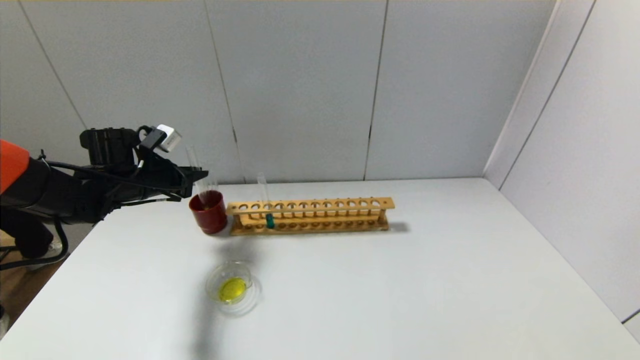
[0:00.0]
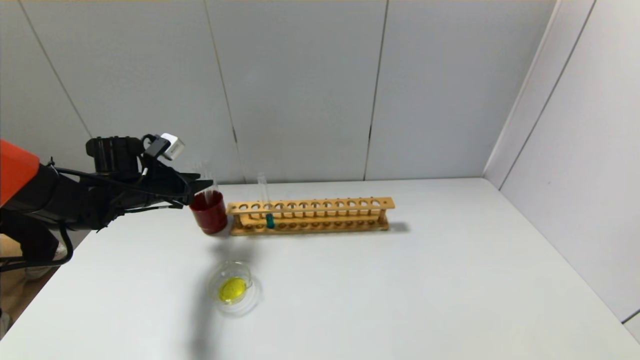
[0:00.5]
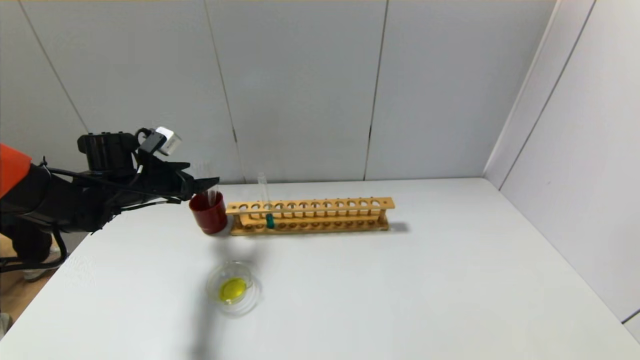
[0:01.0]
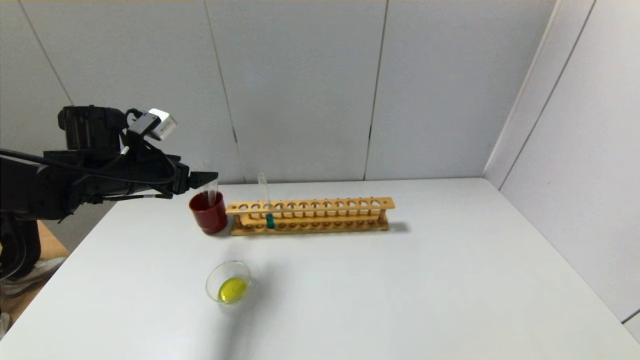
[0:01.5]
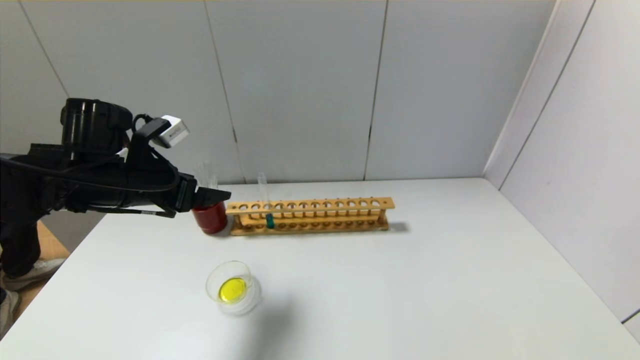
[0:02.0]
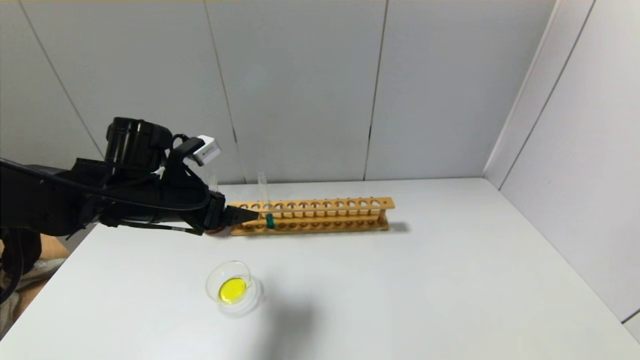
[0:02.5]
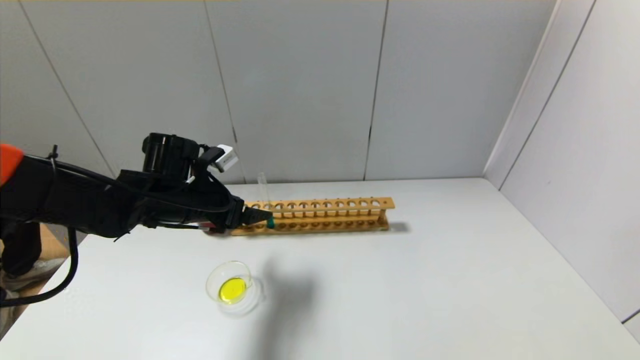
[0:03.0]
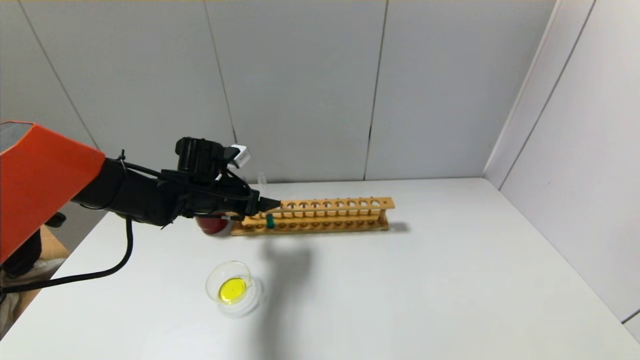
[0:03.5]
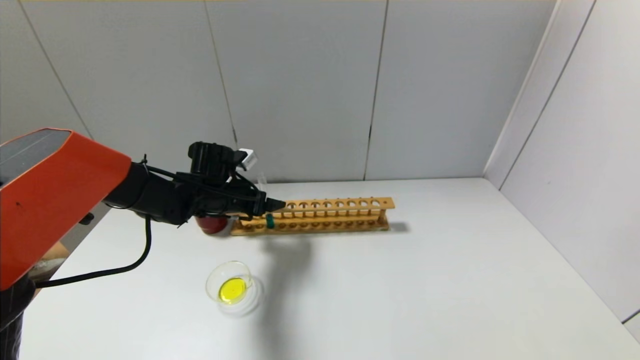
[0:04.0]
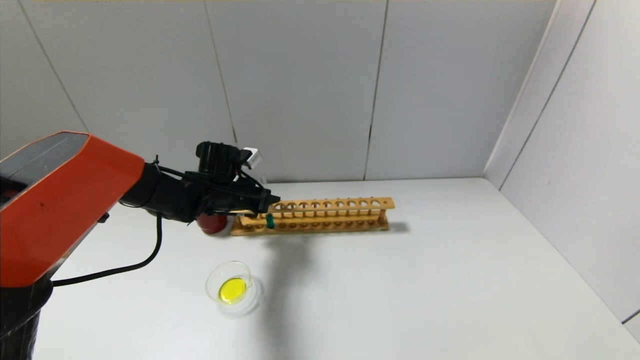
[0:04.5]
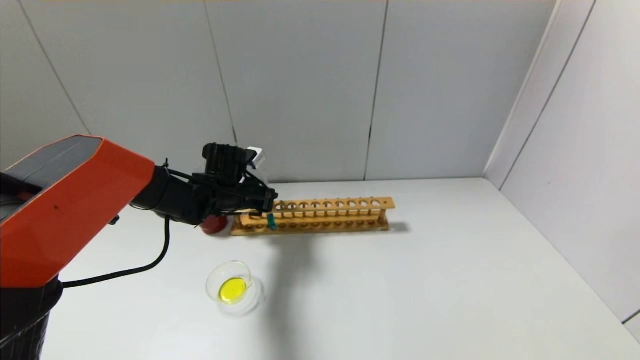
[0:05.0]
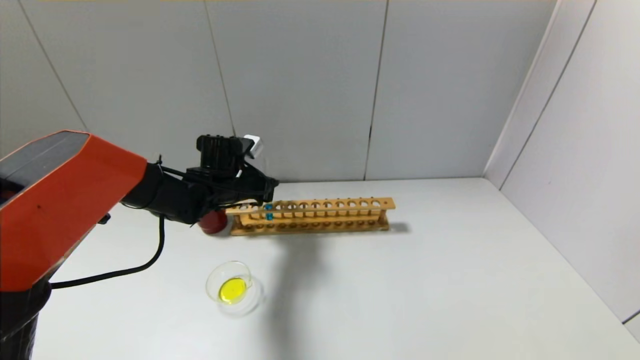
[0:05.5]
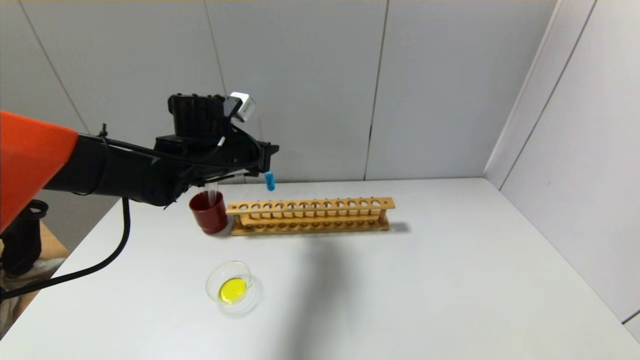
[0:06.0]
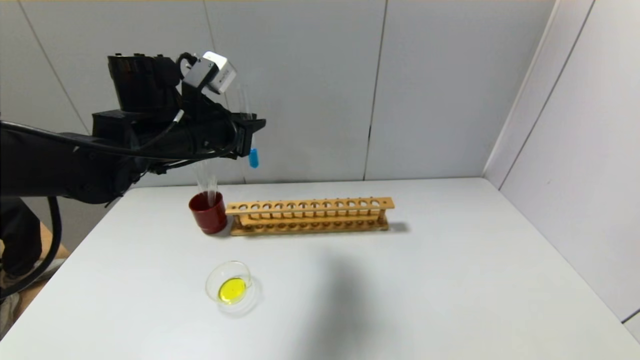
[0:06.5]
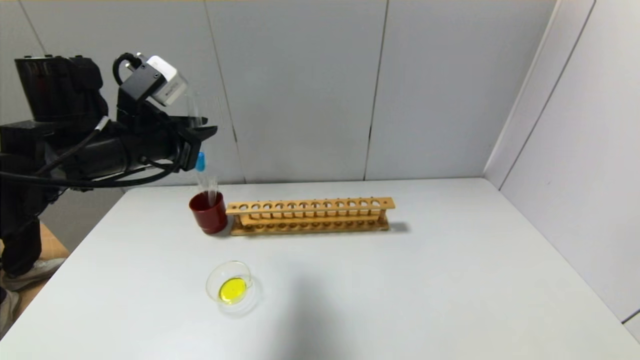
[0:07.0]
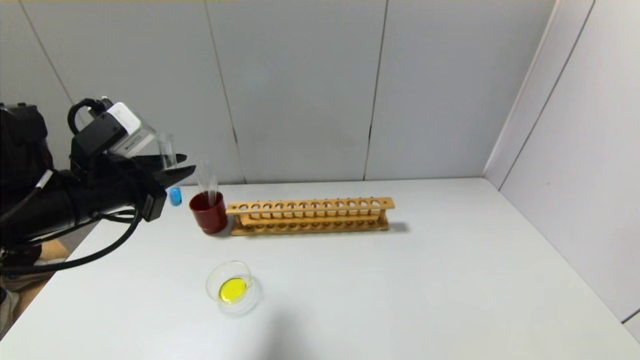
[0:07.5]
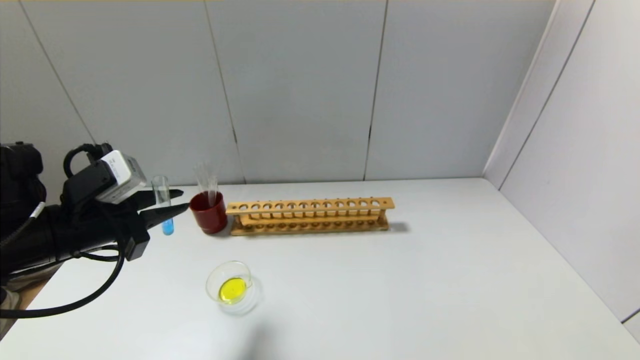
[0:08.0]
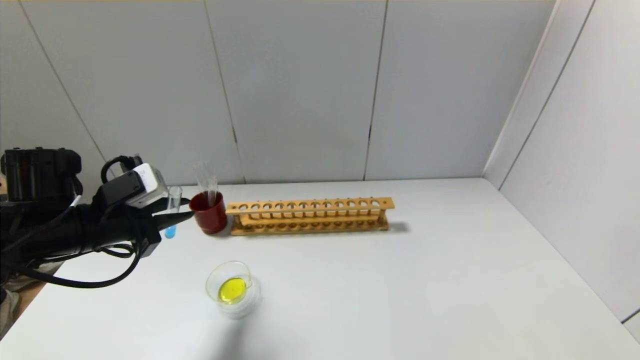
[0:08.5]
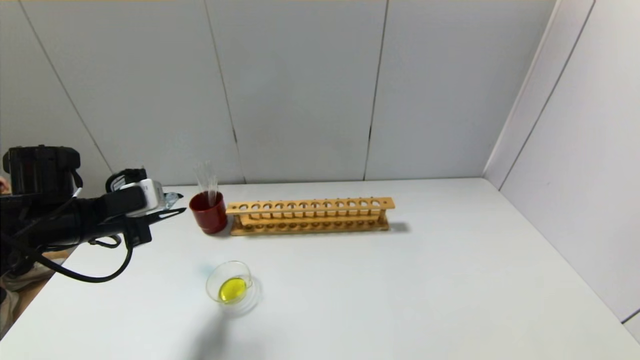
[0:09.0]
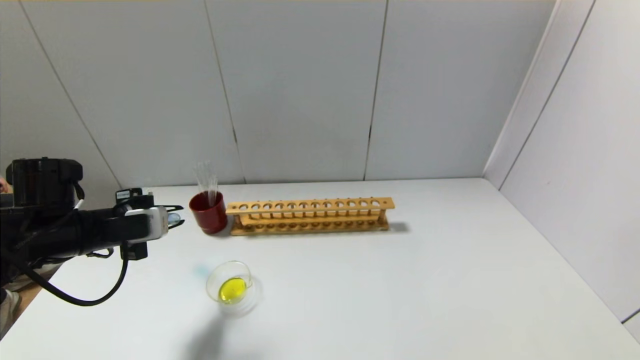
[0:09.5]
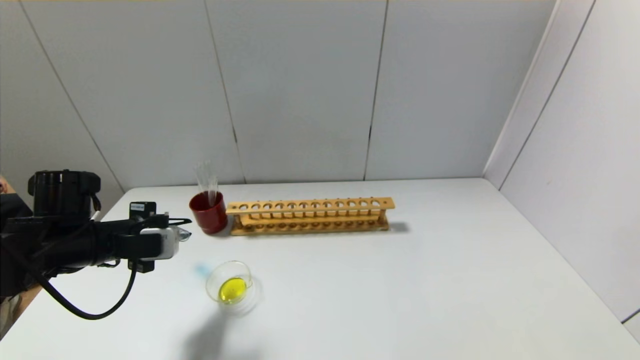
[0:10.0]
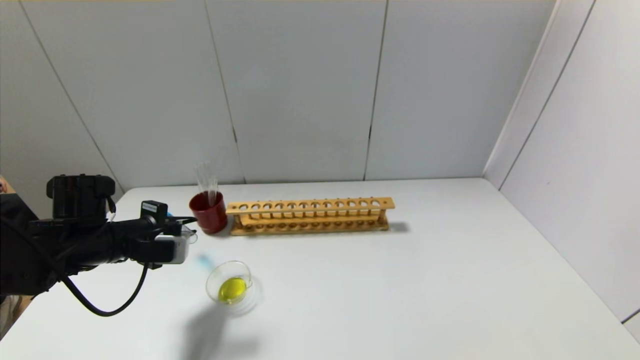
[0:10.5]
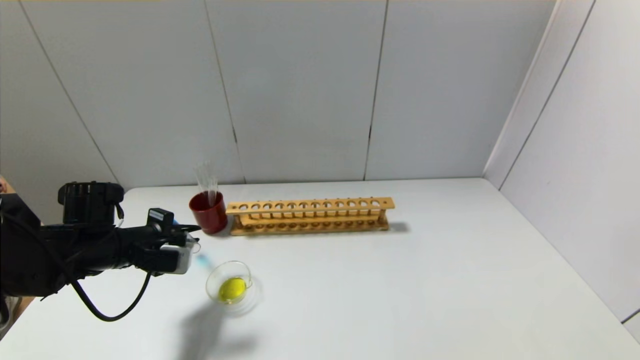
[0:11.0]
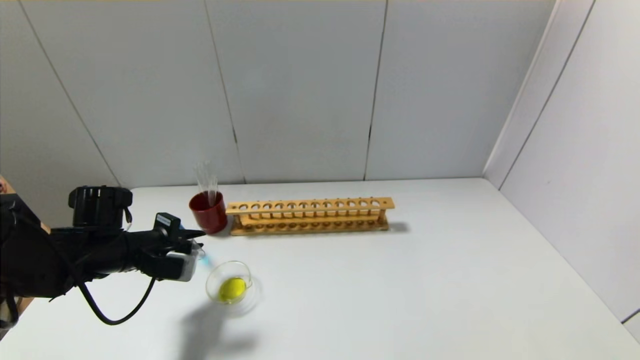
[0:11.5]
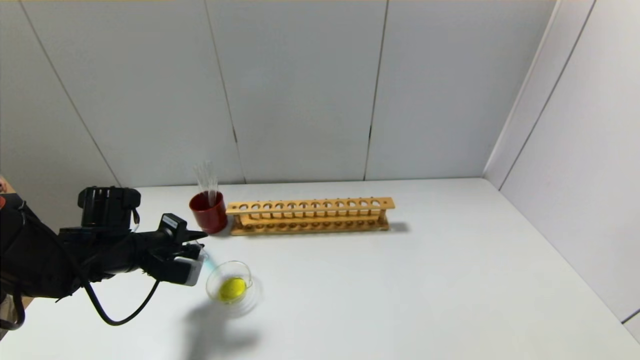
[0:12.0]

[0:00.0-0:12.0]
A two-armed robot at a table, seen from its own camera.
Step, 0:01.0 to 0:05.0: Grasp the blue reagent with the left gripper.
0:00.0 to 0:02.0: The left gripper shifts approximately 15 cm backward, to the right and upward, and opens up.
0:02.0 to 0:04.0: The left gripper moves forward, downward and to the right, about 15 cm.
0:04.0 to 0:06.0: The left gripper shifts approximately 10 cm upward, and closes its fingers.
0:06.0 to 0:08.0: The left gripper is displaced backward and to the left by some 20 cm.
0:08.0 to 0:10.0: The left gripper shifts approximately 5 cm downward.
0:10.0 to 0:12.0: The grippers move only a little.

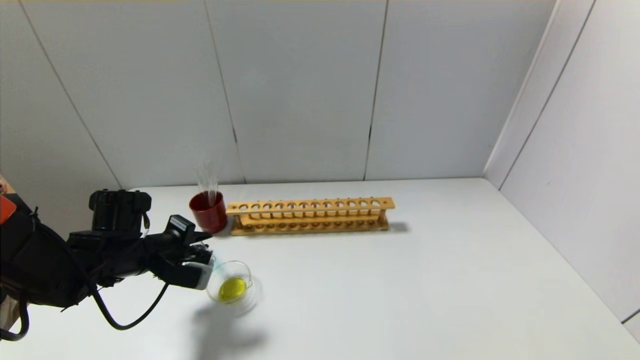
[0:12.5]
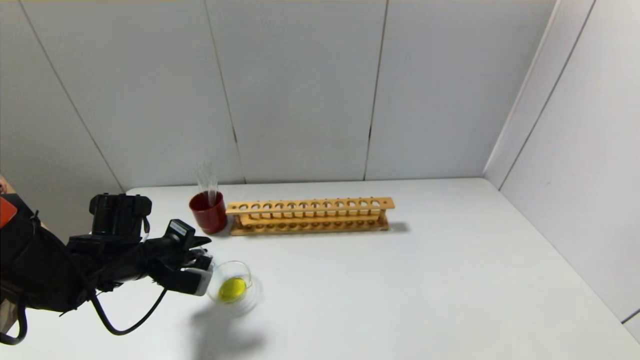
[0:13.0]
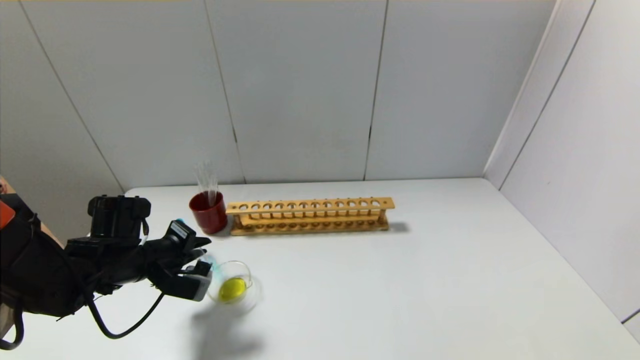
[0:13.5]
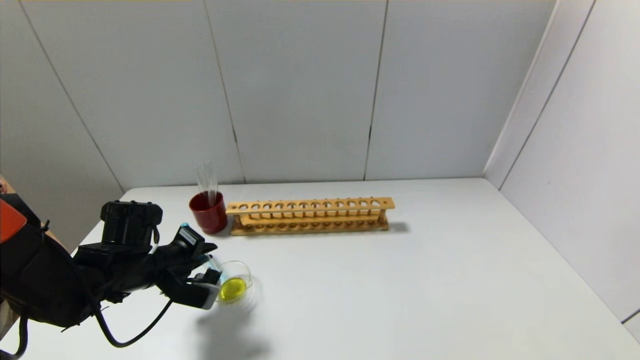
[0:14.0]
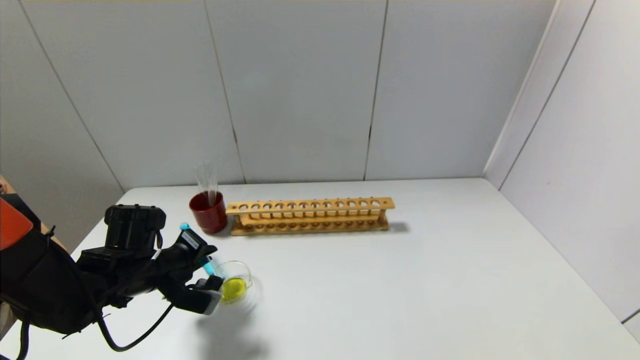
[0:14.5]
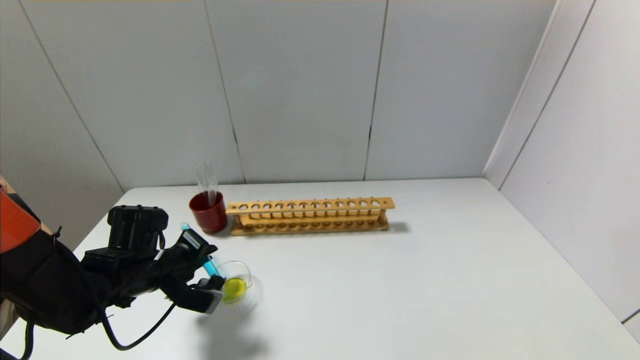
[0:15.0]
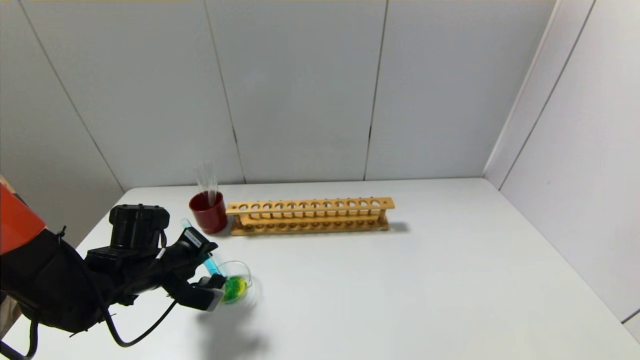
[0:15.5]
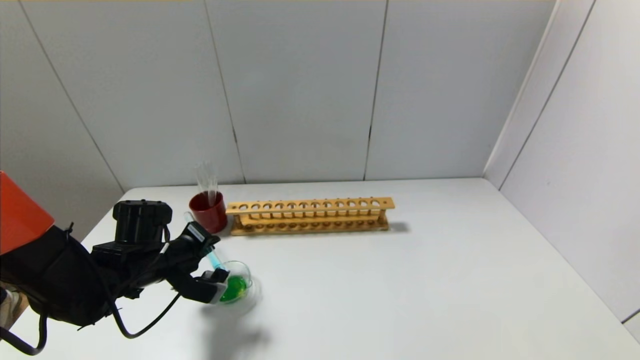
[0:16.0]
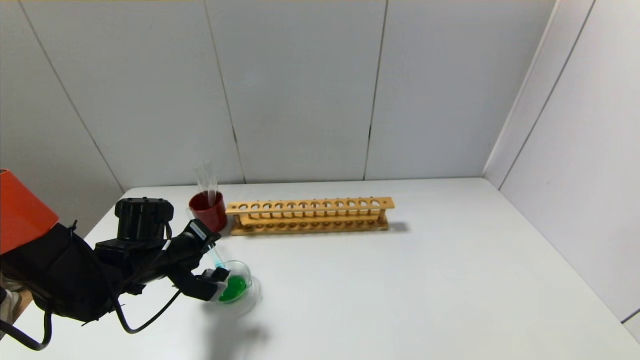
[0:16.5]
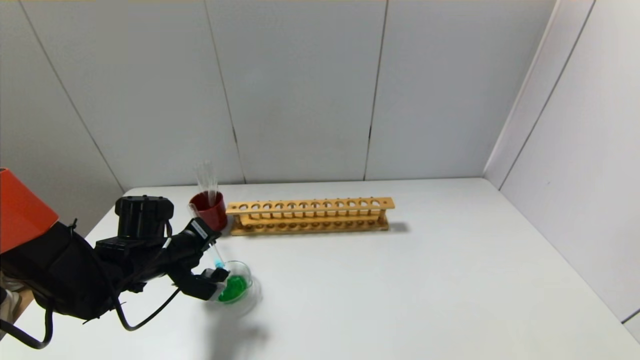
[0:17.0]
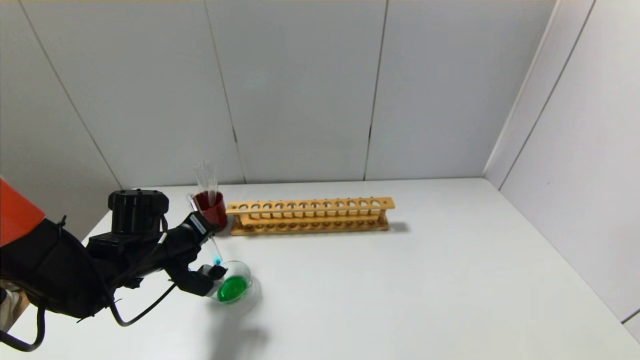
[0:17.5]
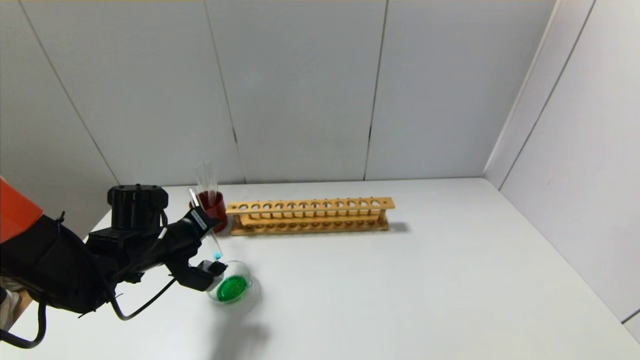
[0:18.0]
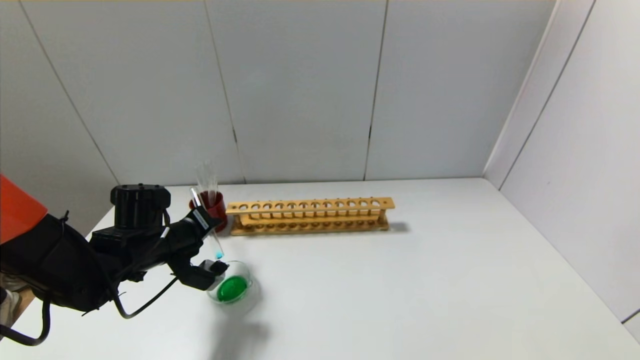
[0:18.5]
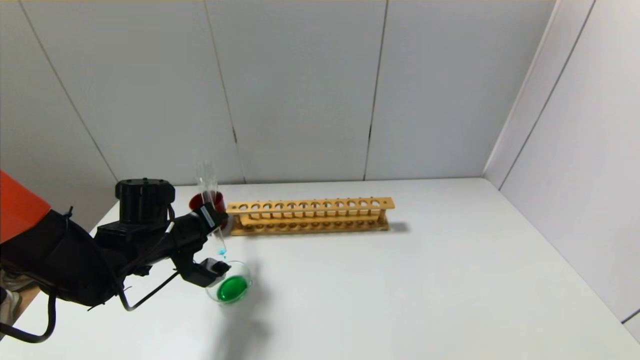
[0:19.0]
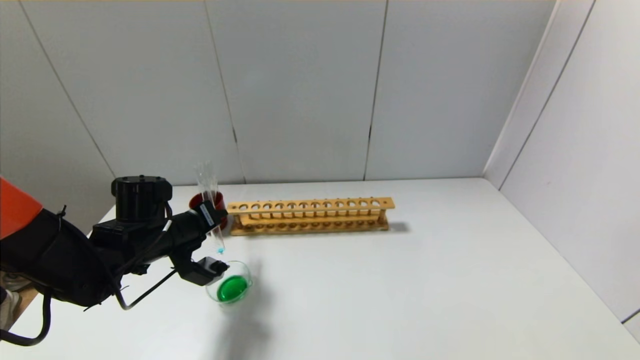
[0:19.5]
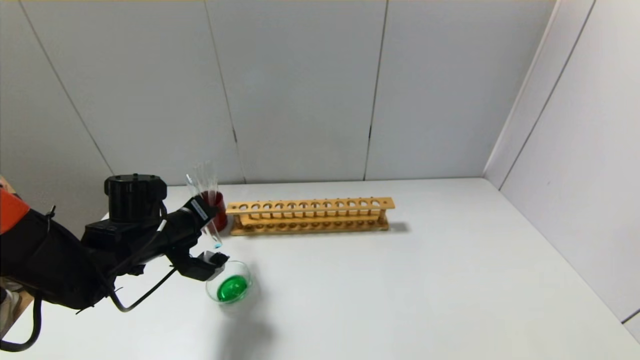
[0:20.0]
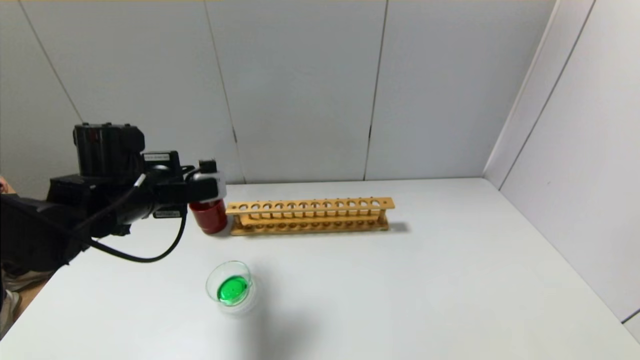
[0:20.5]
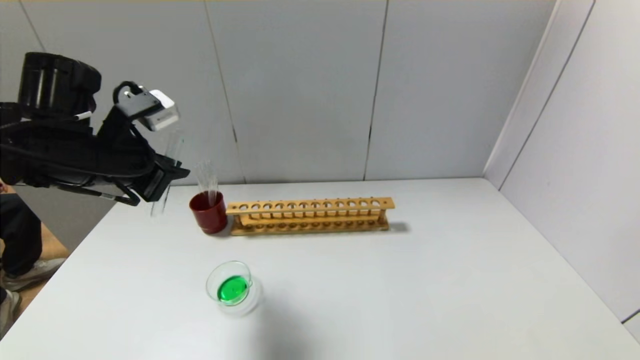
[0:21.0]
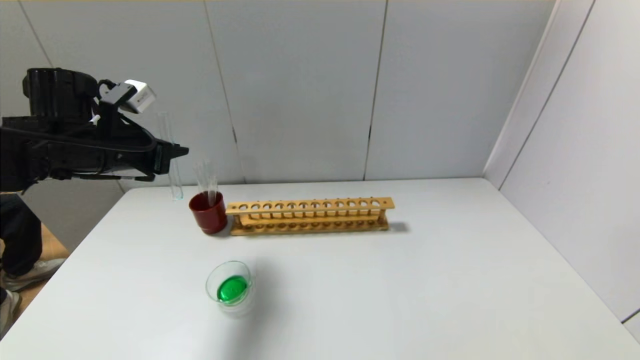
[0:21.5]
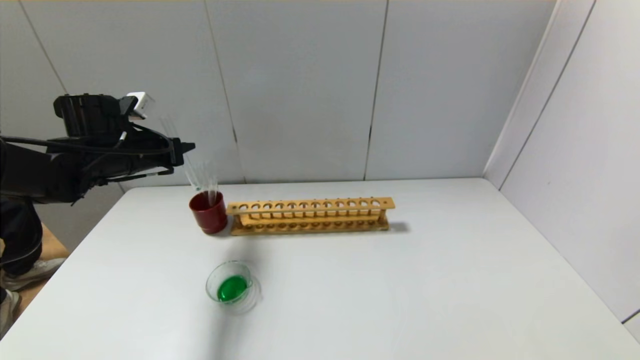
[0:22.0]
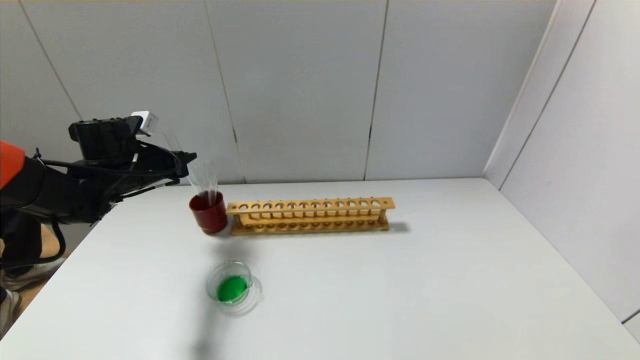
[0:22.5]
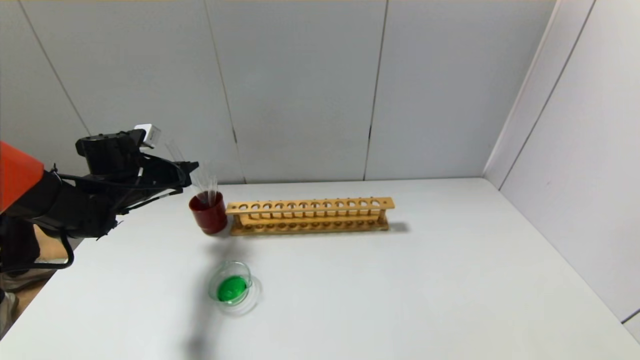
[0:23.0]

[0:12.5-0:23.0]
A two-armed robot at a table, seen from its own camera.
Step, 0:12.5 to 0:20.0: Pour the blue reagent into the graduated cylinder with the left gripper.
0:12.5 to 0:16.5: The grippers move only a little.
0:19.0 to 0:21.0: The left gripper moves upward, approximately 15 cm.
0:21.0 to 0:23.0: The left gripper travels forward, downward and to the left by approximately 20 cm.
